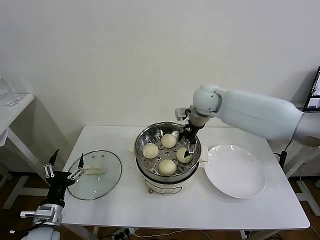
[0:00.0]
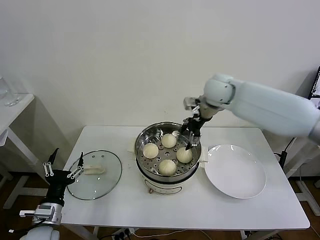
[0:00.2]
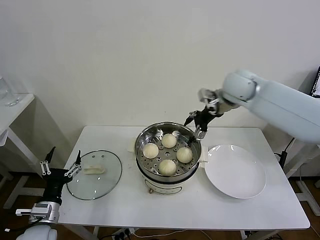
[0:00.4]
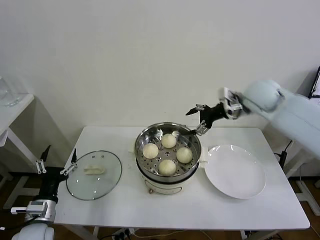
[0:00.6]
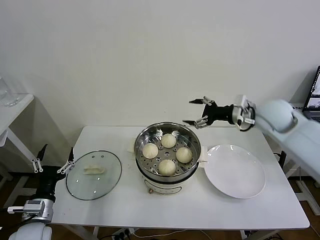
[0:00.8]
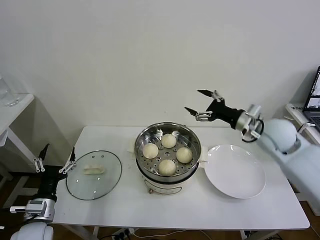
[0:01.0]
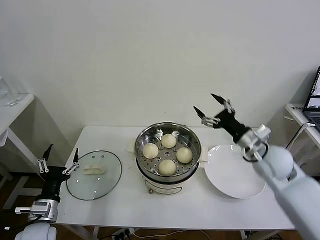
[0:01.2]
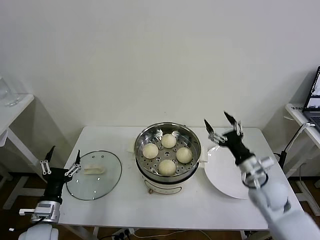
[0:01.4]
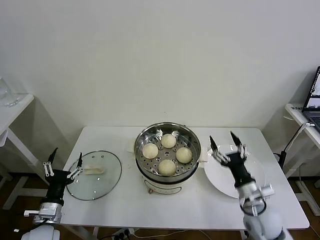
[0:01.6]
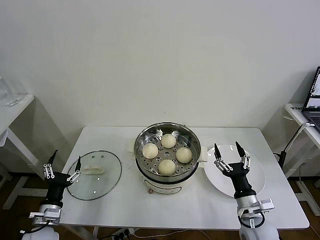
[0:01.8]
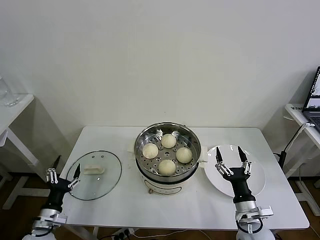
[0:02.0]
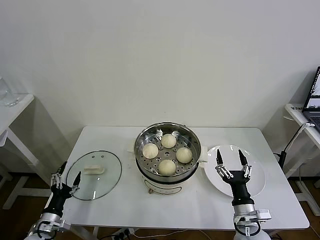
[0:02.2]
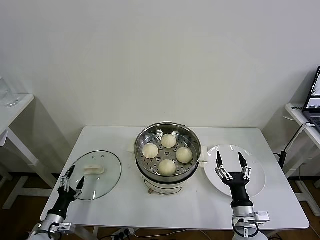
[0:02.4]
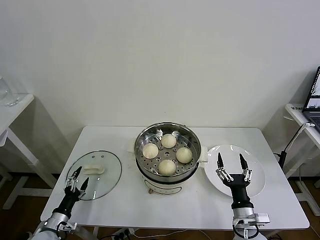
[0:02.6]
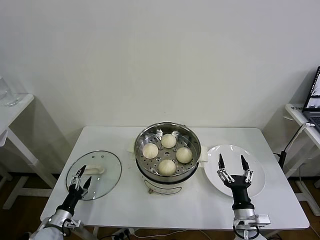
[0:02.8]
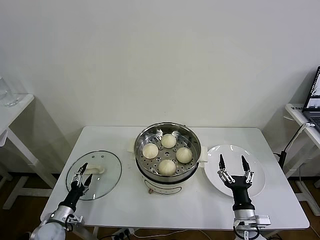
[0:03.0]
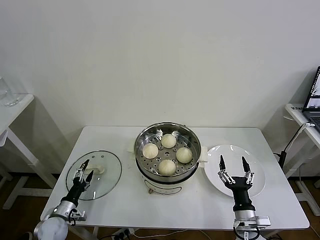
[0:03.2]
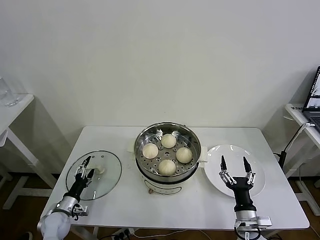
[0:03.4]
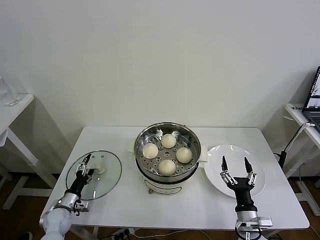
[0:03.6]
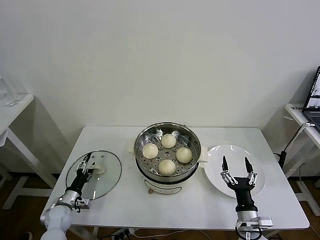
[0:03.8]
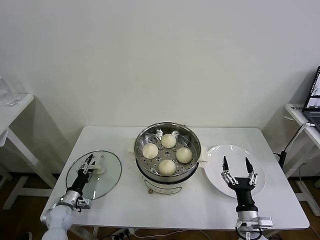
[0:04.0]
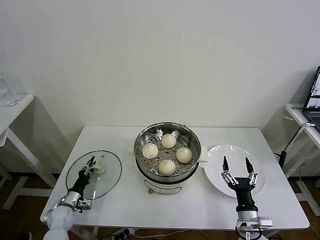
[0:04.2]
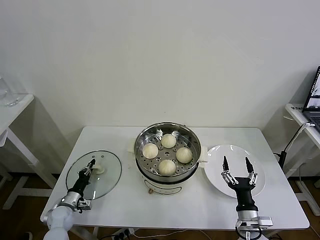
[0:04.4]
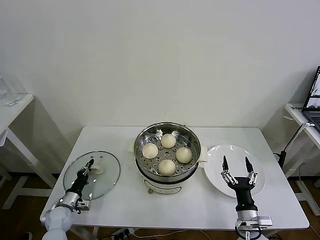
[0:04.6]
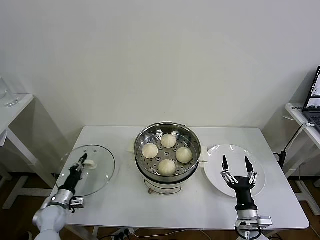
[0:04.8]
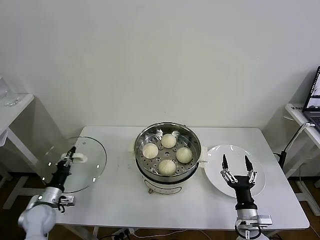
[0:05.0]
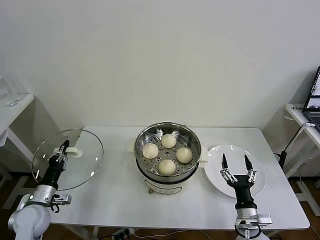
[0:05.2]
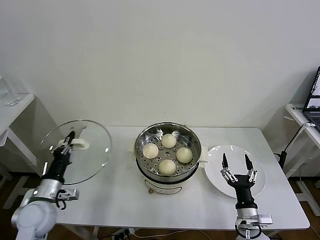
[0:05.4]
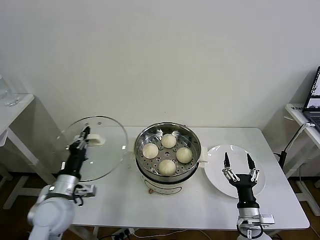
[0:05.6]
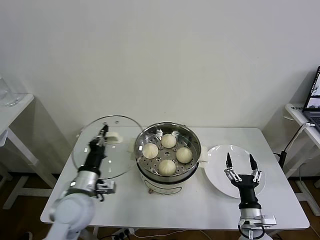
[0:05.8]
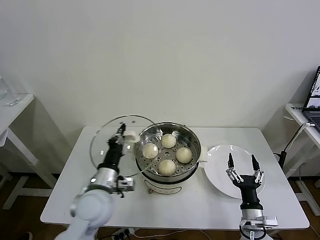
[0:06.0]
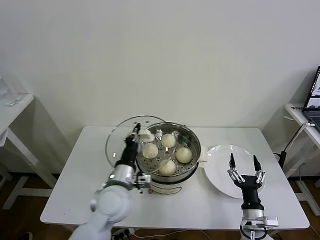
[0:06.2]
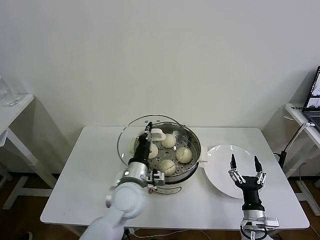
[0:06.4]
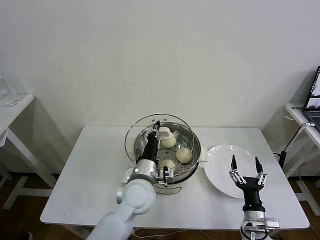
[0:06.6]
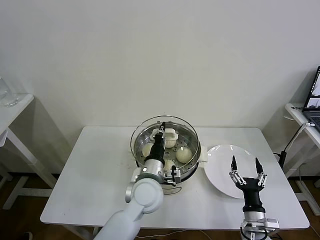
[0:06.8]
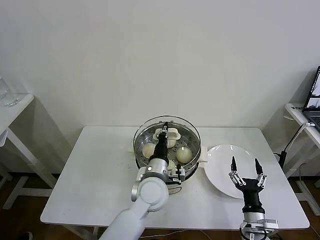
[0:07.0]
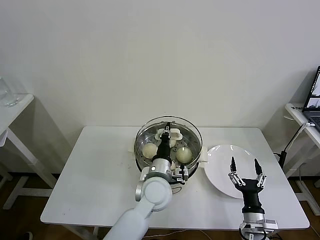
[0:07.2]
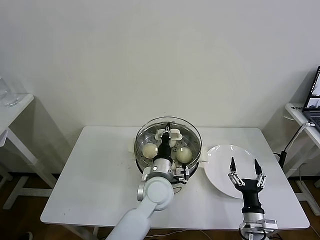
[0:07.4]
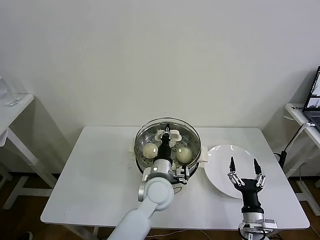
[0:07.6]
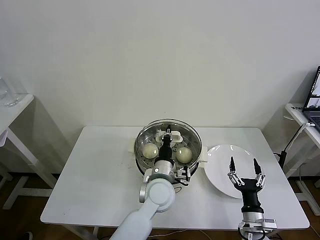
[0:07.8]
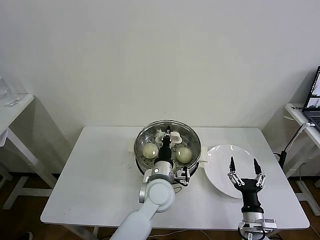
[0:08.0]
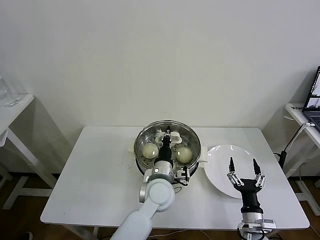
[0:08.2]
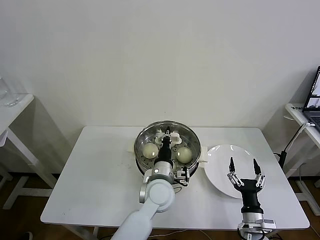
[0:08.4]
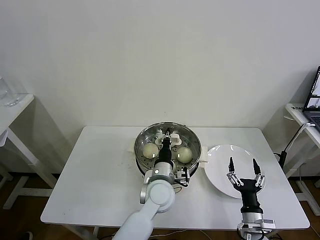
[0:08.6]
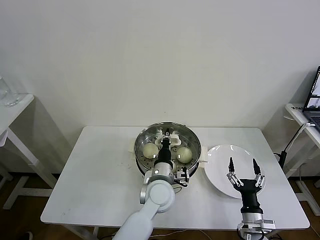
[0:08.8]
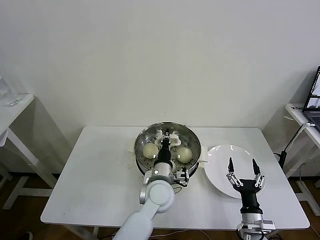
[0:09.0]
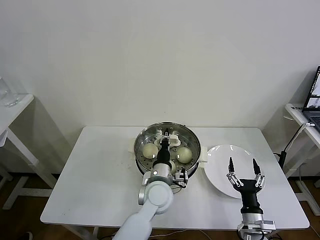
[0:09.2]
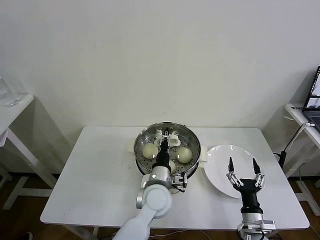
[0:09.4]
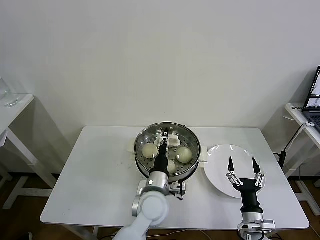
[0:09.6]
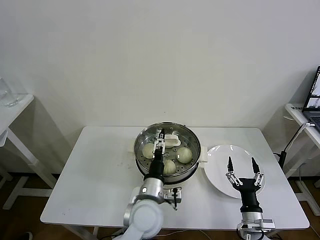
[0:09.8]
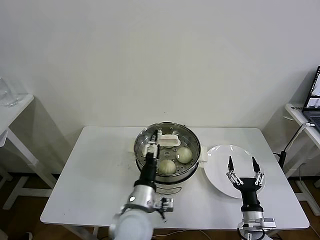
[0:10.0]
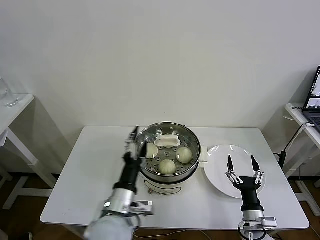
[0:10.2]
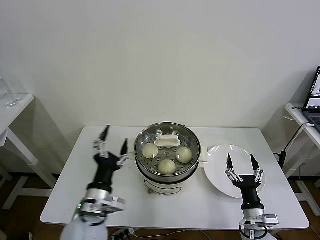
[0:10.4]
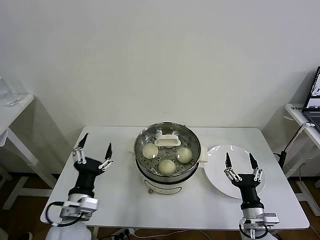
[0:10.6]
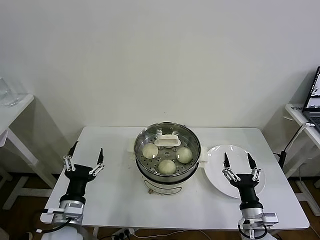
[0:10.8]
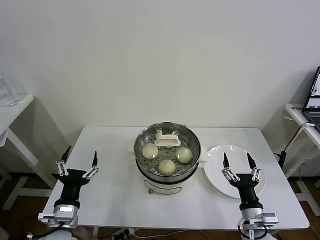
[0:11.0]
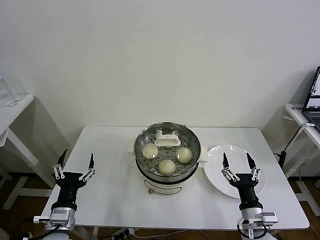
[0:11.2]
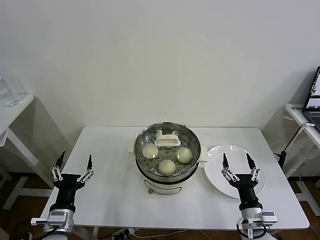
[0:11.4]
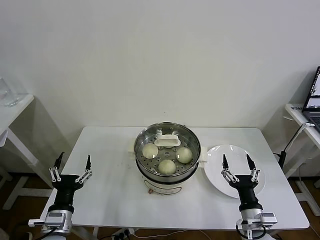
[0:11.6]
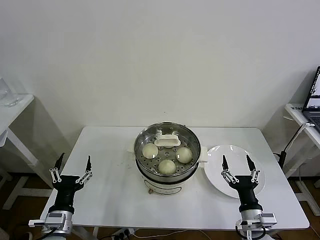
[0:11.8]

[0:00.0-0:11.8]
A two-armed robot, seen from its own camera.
Task of the whole recording: take steamed baozi put them in steamer then cover it.
Step, 0:00.2 to 0:04.6: Grasp the pot lid with left gripper.
Step, 0:04.8 to 0:09.8: Place the pot lid on the steamer with left gripper.
0:00.0 to 0:01.4: The right gripper heads backward, to the right and downward, covering approximately 35 cm.
0:01.4 to 0:03.0: The left gripper heads downward, covering about 15 cm. Meanwhile the right gripper travels backward and downward by approximately 20 cm.
0:03.0 to 0:04.4: The left gripper heads forward, covering about 5 cm, and closes its fingers.
0:04.4 to 0:06.0: The left gripper shifts approximately 30 cm upward and to the right.
0:06.0 to 0:07.4: The left gripper moves to the right, approximately 20 cm.
0:07.4 to 0:08.8: The grippers stay close to where they were, moving slightly.
0:08.8 to 0:10.4: The left gripper travels to the left and backward by about 20 cm, and opens up.
0:10.4 to 0:11.8: The left gripper moves to the left and downward, approximately 15 cm.
